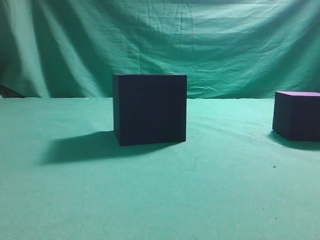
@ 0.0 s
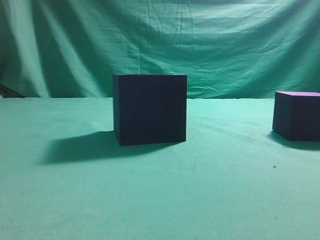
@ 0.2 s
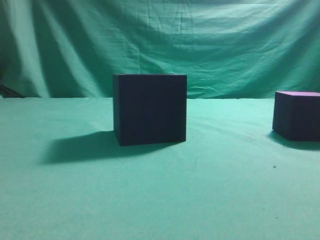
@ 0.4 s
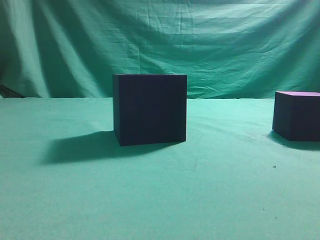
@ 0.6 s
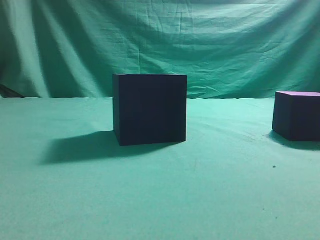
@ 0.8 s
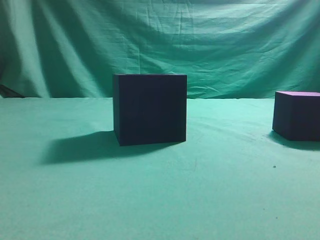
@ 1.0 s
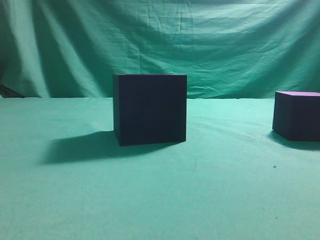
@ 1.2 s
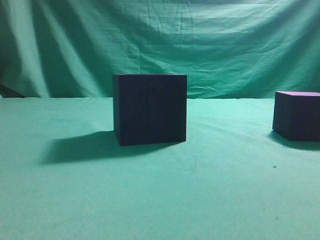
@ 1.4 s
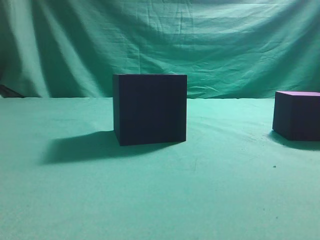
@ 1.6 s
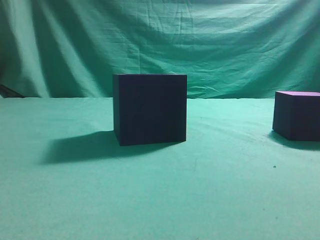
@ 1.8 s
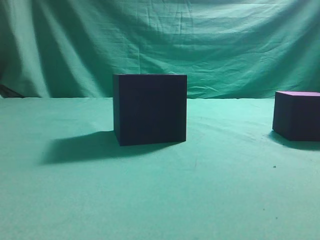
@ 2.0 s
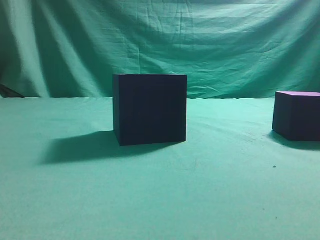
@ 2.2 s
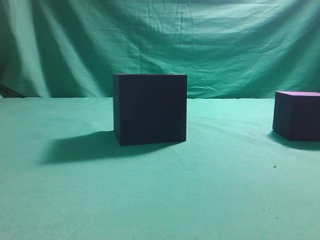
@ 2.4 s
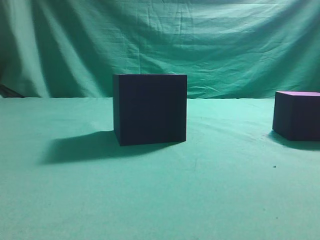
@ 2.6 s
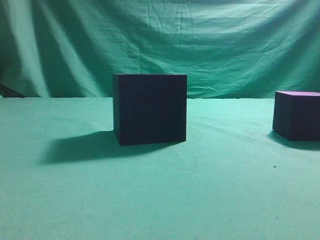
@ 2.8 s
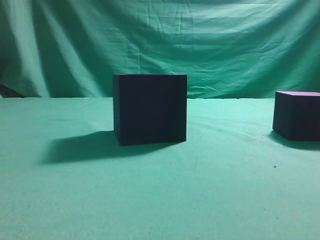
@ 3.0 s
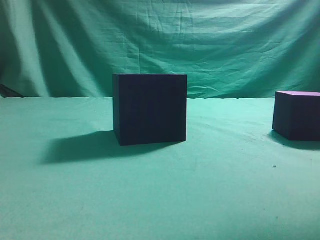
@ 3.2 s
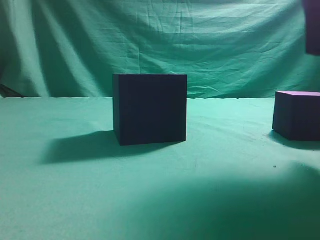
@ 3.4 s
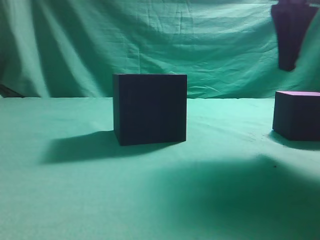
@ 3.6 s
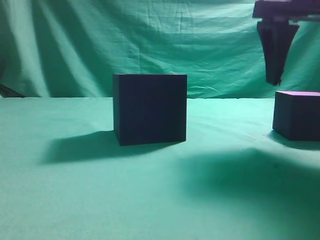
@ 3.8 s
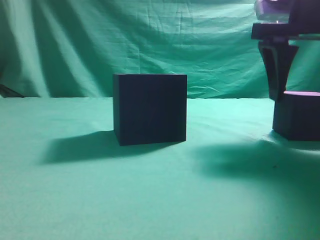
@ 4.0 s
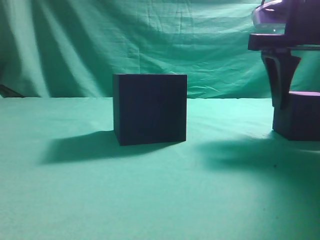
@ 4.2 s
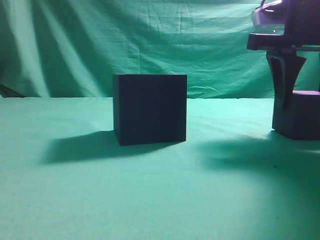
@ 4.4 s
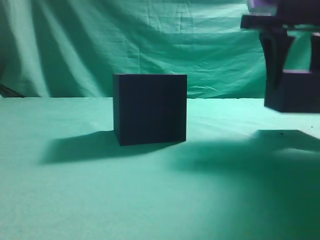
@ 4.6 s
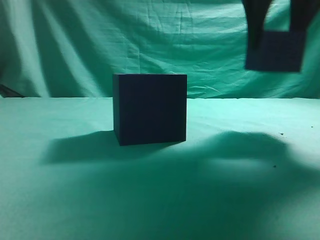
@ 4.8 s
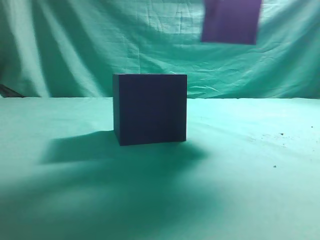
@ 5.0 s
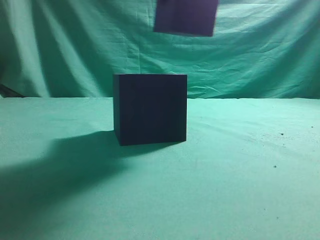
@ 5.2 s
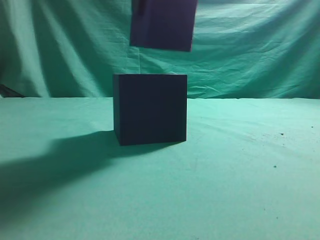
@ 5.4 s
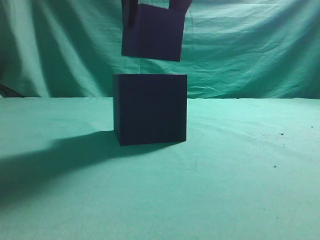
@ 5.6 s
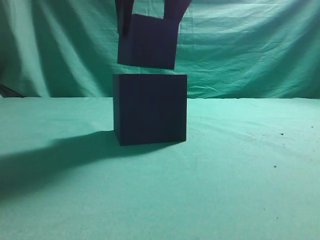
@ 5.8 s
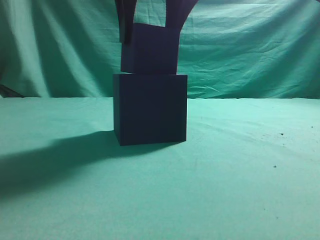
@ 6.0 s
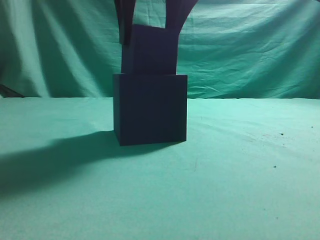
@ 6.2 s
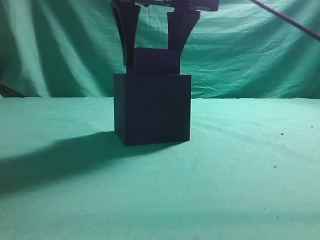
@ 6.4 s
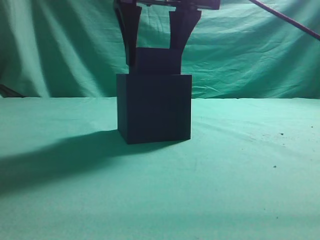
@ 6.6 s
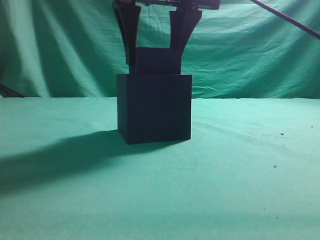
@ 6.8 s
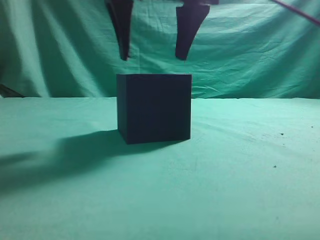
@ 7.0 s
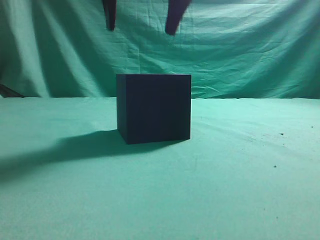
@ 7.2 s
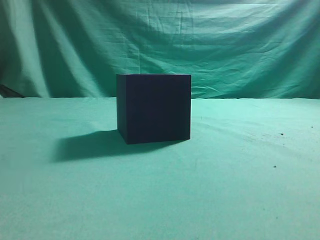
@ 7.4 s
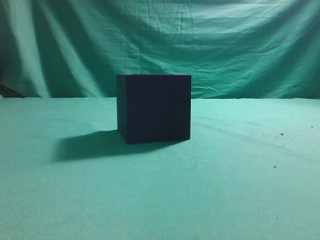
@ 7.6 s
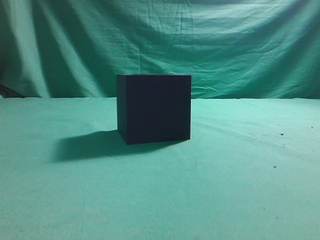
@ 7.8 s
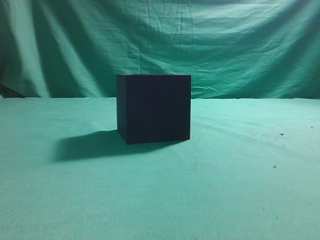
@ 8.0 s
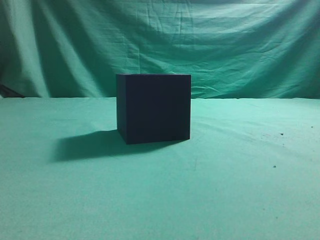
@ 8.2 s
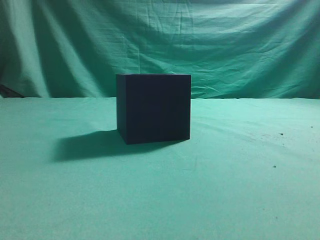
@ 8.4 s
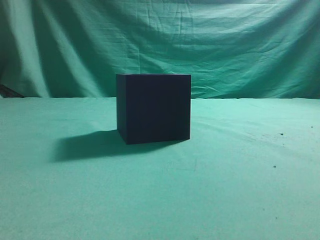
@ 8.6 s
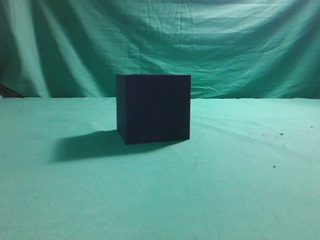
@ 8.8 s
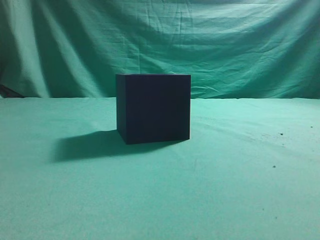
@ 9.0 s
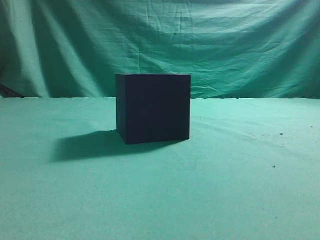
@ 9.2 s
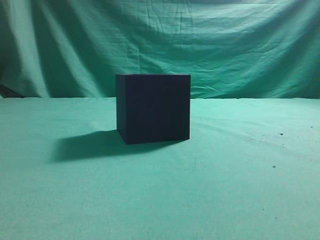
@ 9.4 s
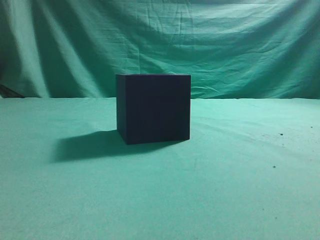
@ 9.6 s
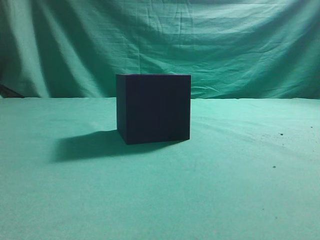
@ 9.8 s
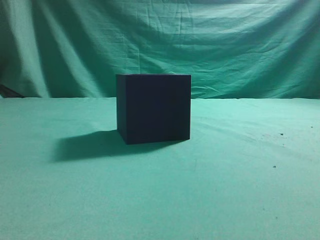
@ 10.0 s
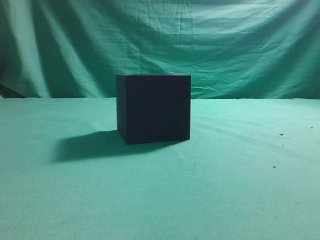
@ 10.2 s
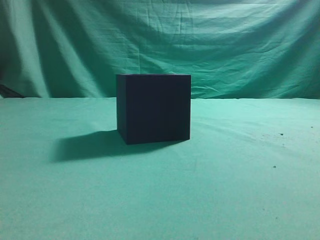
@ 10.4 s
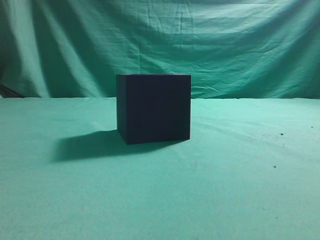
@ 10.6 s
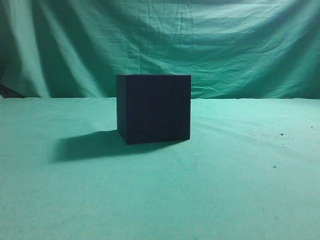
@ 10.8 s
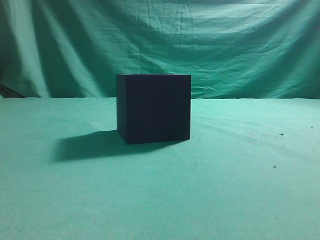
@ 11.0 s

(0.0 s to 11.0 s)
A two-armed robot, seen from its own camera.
Task of the whole recording: pick up the cube block and place it into the cube groove.
Step, 0.0 s - 4.4 s: Grasp the cube.
Step, 4.8 s - 7.0 s: Place cube into the cube-shaped recess.
1.6 s - 3.2 s: The right gripper shifts some 20 cm forward, to the left and upward.
3.2 s - 4.8 s: The right gripper travels forward by some 10 cm, and opens up.
4.8 s - 6.2 s: The right gripper moves to the left, some 15 cm.
6.2 s - 7.8 s: The right gripper shifts approximately 20 cm upward, and closes up.
